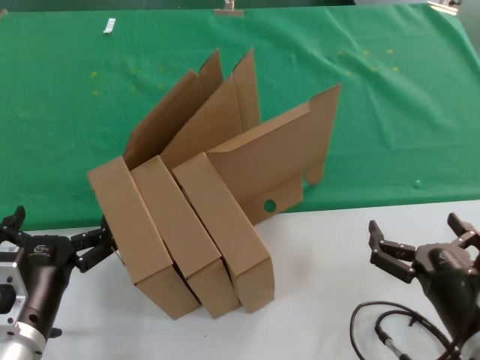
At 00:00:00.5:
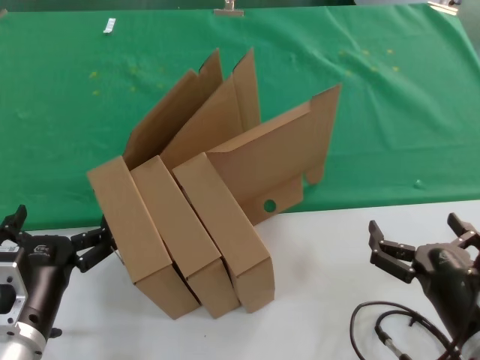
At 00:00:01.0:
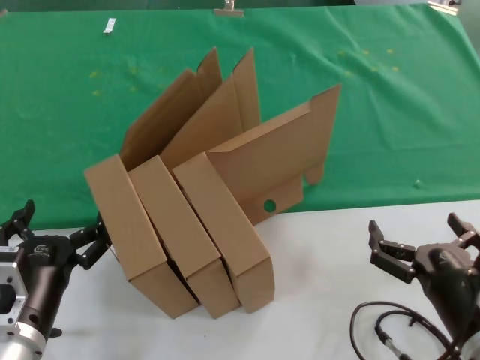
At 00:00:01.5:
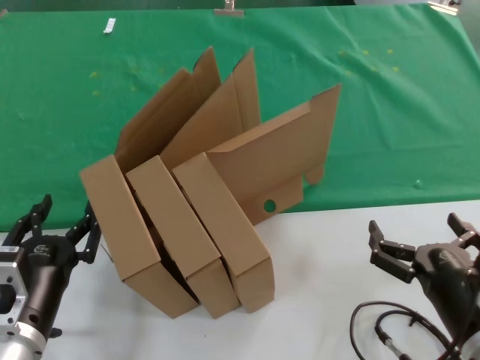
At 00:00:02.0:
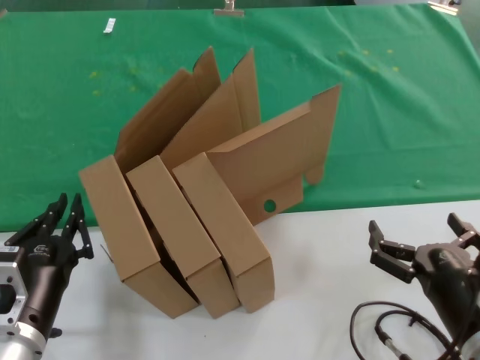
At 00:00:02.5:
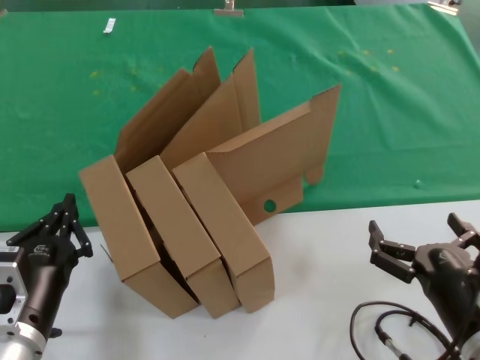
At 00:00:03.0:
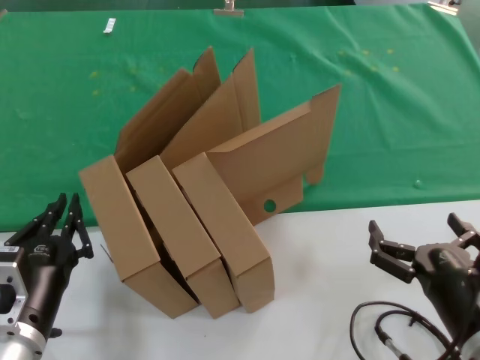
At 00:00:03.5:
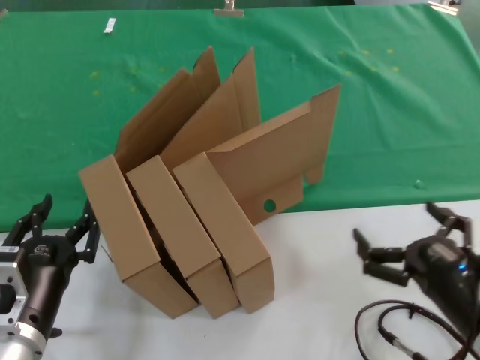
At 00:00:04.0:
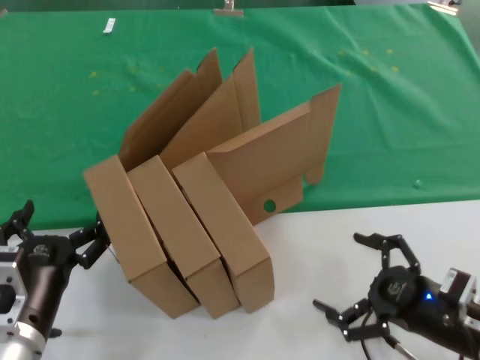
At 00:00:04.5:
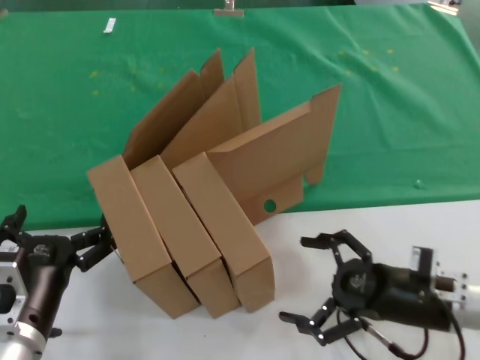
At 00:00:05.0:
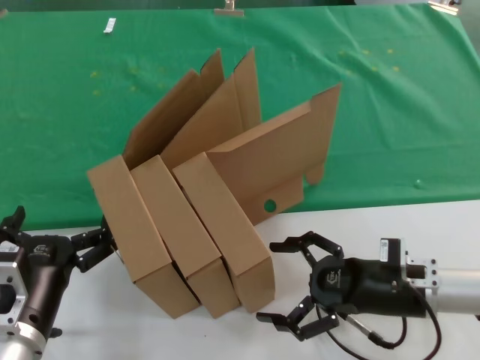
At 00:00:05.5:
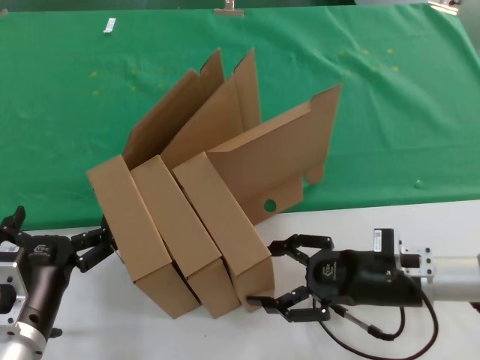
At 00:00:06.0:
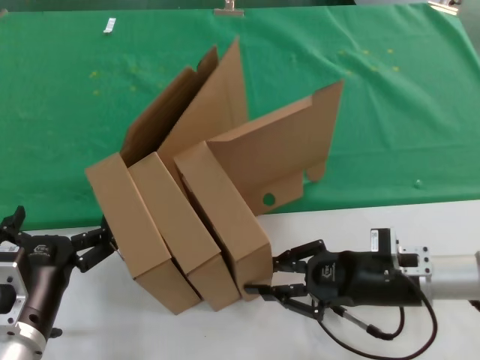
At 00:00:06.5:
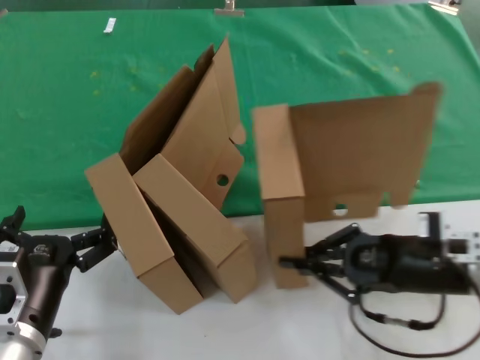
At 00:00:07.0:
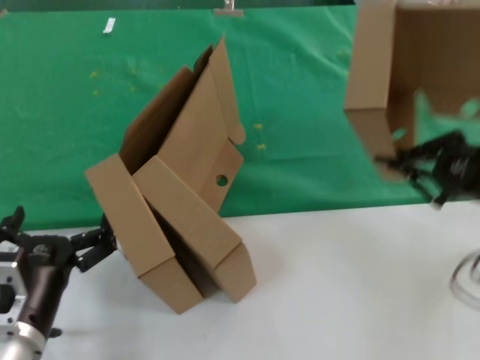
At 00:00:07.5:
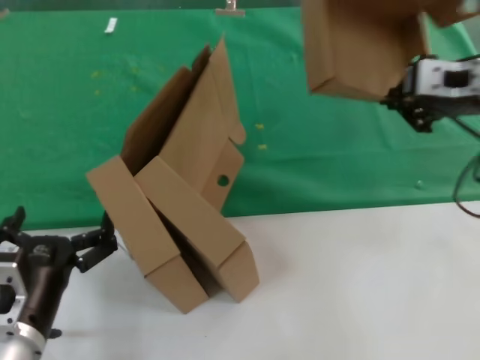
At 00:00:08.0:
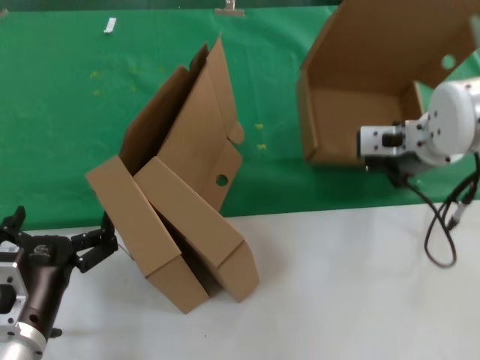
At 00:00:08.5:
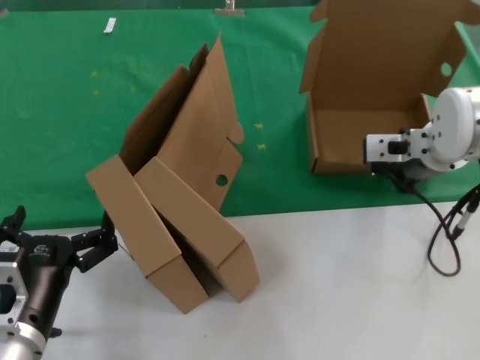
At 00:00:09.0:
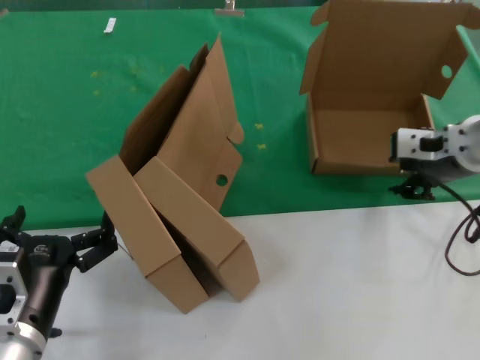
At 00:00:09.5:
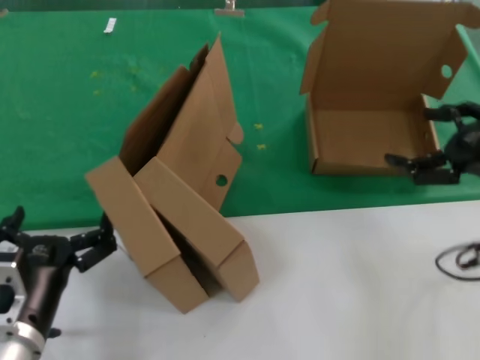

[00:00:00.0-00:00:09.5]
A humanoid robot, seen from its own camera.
Task of the whole recording: pick up the paper box and put it at the back.
Step, 00:00:00.0 to 00:00:06.0: Grasp the paper box.
Step, 00:00:06.5 to 00:00:08.5: Place the paper box on the table.
00:00:00.0 to 00:00:02.0: Both hands stay about where they are.
00:00:02.0 to 00:00:04.0: The right hand travels to the right and forward by roughly 10 cm.
00:00:04.0 to 00:00:05.5: The right hand heads forward, covering approximately 10 cm.
00:00:05.5 to 00:00:07.5: The right hand travels upward by approximately 25 cm.
00:00:07.5 to 00:00:09.5: The right hand heads to the right, downward and backward, covering about 10 cm.

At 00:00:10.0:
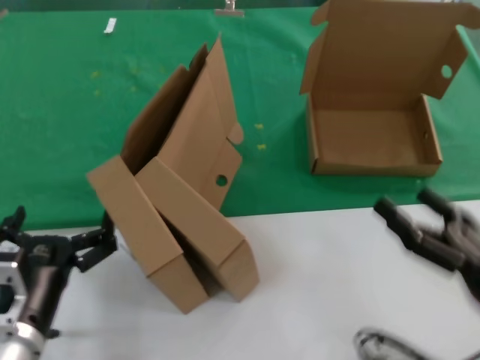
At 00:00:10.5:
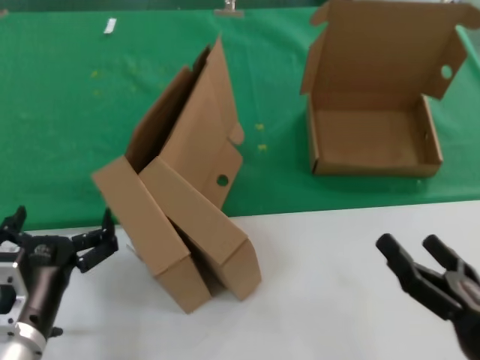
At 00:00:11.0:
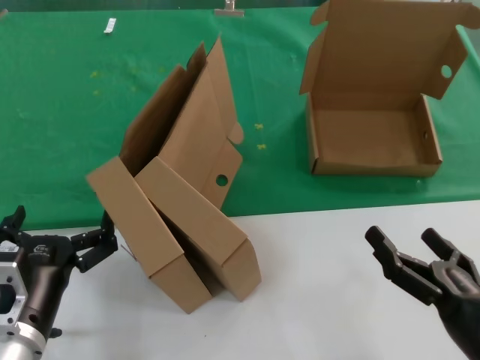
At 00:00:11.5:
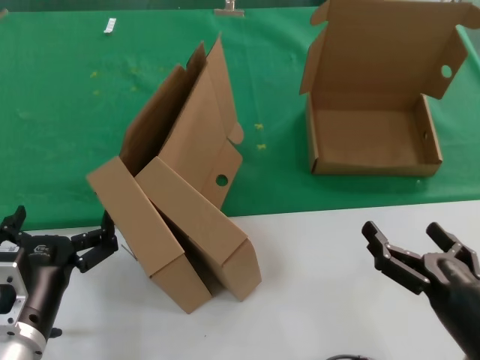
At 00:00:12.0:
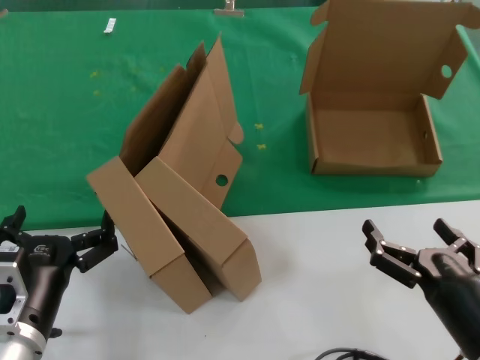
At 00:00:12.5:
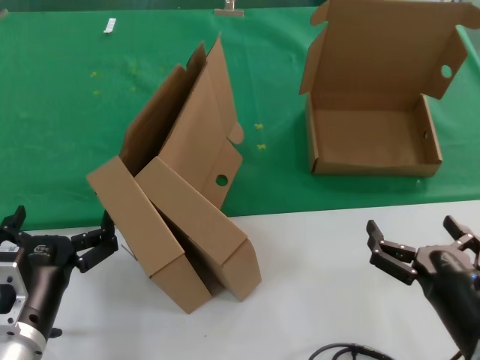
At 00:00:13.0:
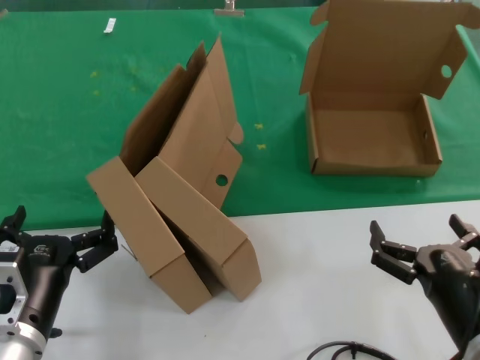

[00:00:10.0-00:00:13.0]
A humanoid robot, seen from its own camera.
Task of the whole recording: pick up the paper box and put it at the back.
00:00:10.0 to 00:00:11.5: The right hand heads to the left, covering some 5 cm.

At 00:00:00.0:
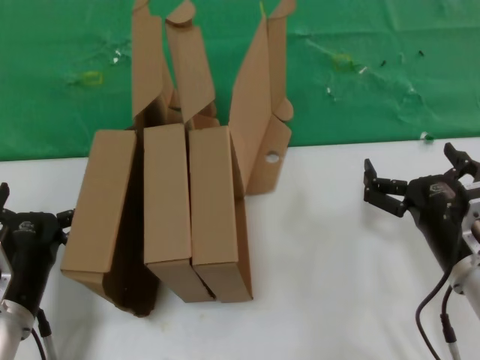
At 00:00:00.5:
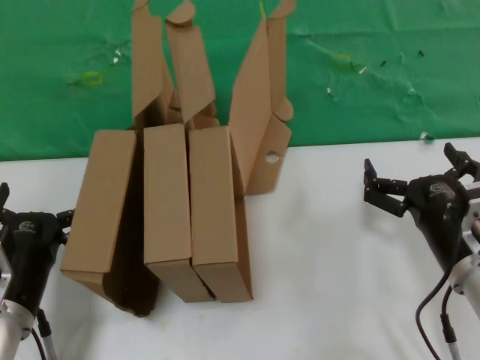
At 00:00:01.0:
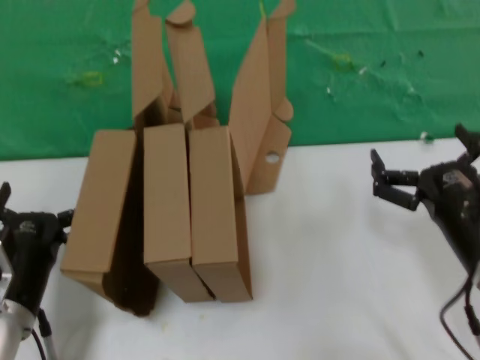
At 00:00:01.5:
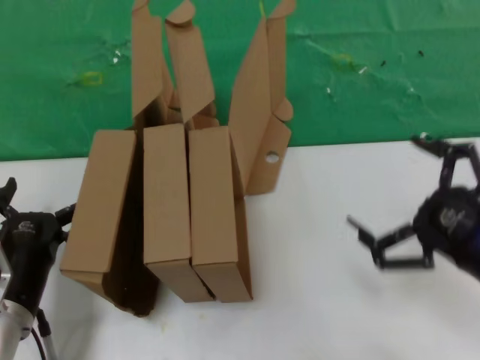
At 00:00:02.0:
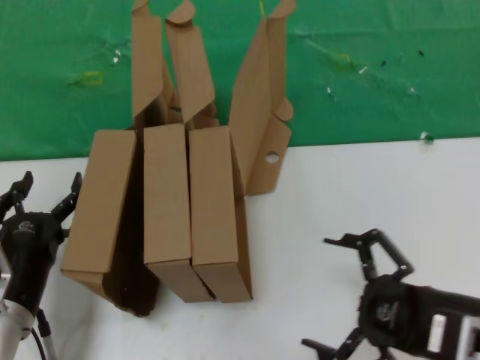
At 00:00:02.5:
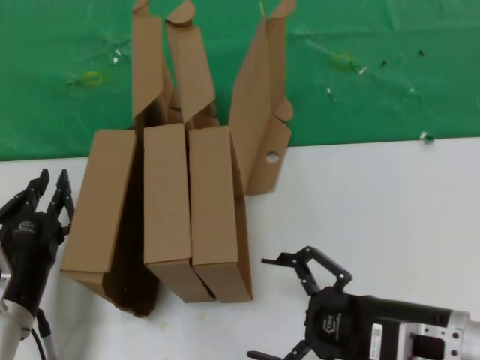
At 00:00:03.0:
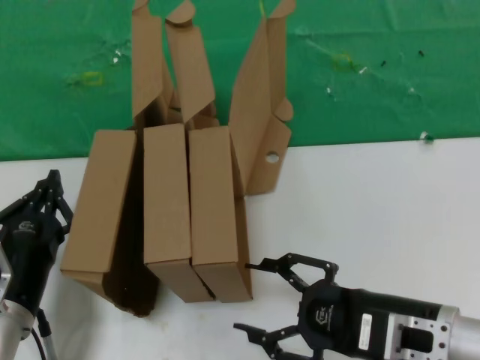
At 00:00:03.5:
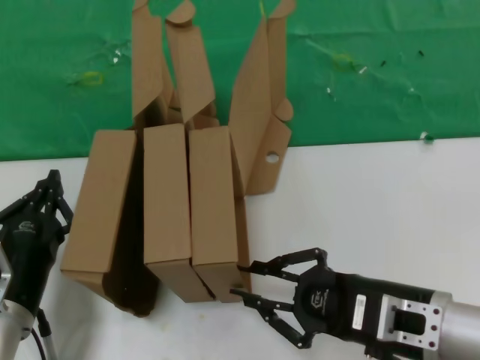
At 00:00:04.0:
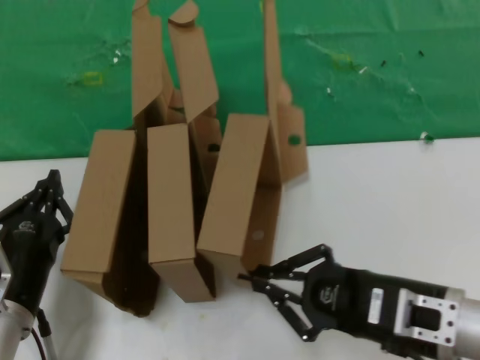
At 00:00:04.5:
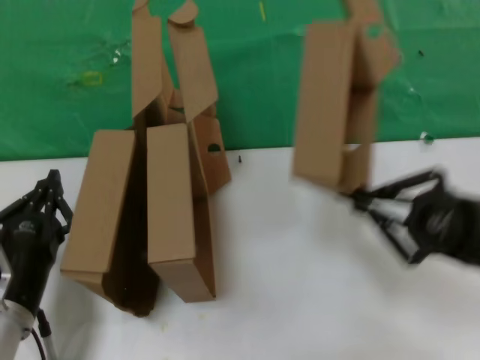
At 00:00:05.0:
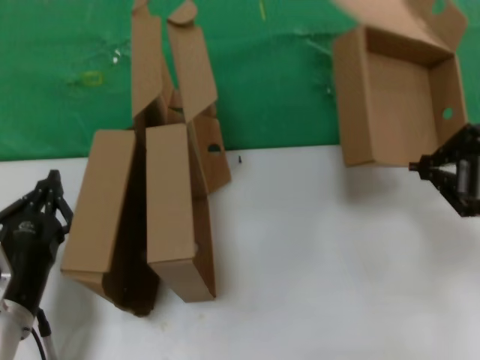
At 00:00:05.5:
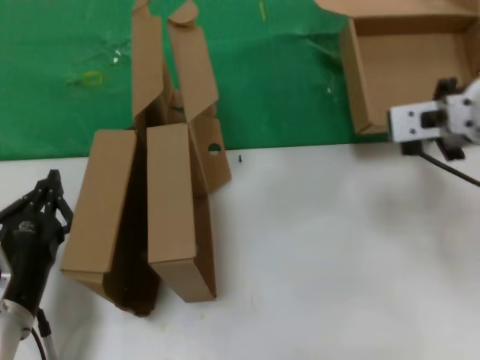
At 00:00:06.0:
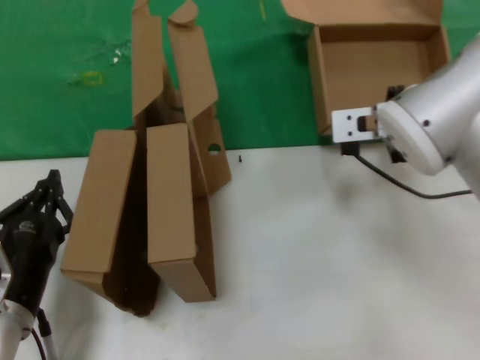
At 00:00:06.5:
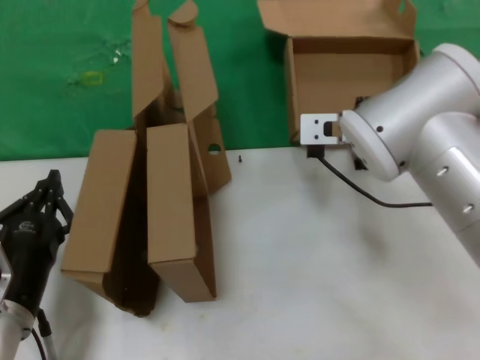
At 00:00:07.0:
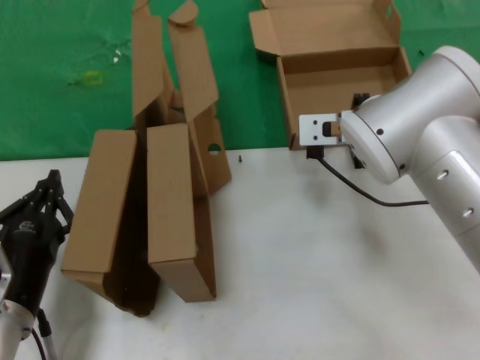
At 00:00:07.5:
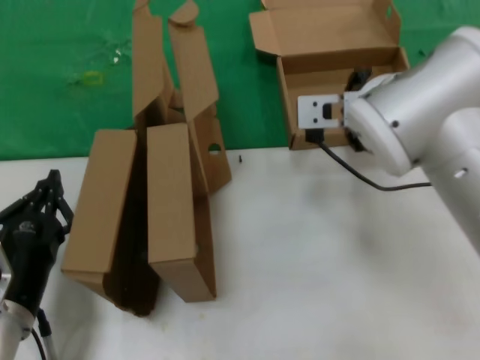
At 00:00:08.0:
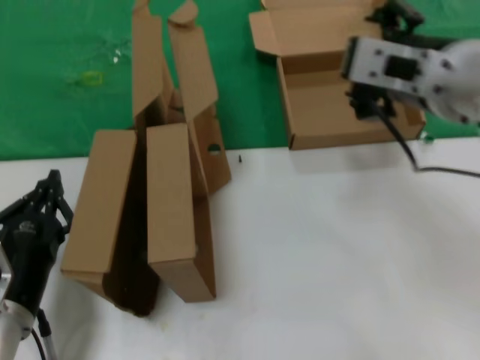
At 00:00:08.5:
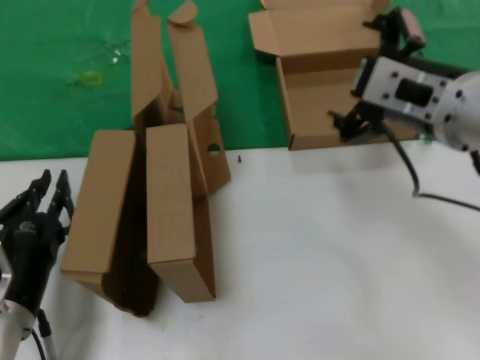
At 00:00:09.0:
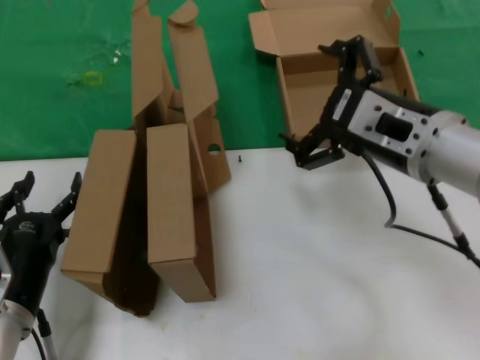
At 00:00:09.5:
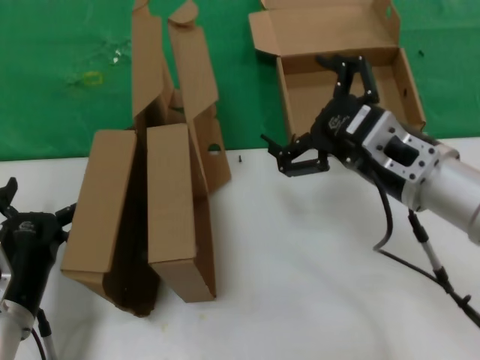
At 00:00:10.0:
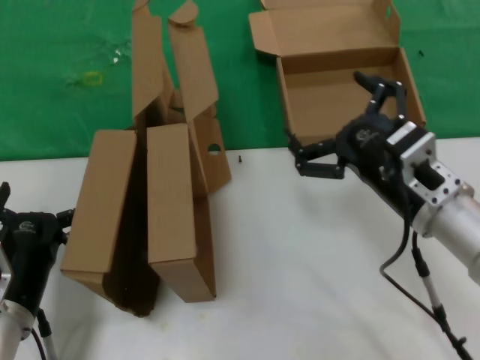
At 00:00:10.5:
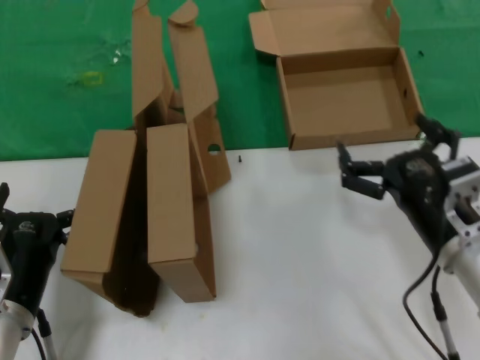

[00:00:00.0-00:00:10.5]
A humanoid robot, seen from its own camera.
Task of the whole recording: pick up the paper box and put it at the back.
Step, 00:00:00.0 to 00:00:03.5: Grasp the paper box.
Step, 00:00:04.0 to 00:00:07.0: Place the paper box on the table.
00:00:00.0 to 00:00:02.0: The right hand is displaced backward and upward by approximately 10 cm.
00:00:02.0 to 00:00:04.0: The right hand heads to the left, covering roughly 5 cm.
00:00:04.0 to 00:00:06.5: The right hand is displaced forward, upward and to the left by some 25 cm.
00:00:06.5 to 00:00:08.5: The right hand shifts approximately 15 cm backward, to the right and upward.
00:00:08.5 to 00:00:10.5: The right hand shifts about 20 cm downward.
